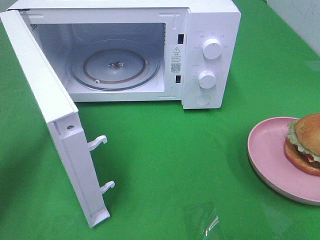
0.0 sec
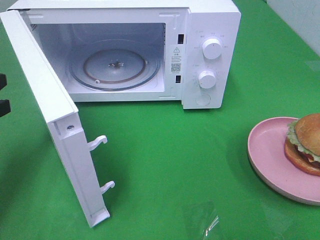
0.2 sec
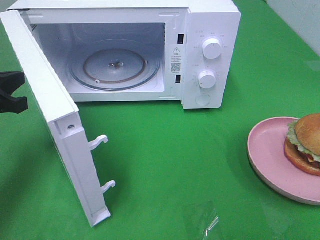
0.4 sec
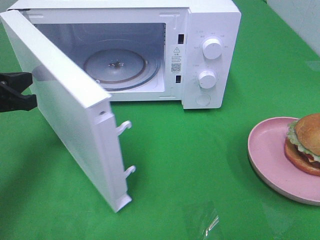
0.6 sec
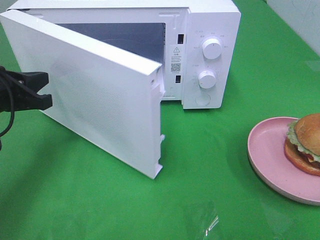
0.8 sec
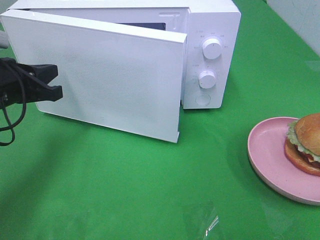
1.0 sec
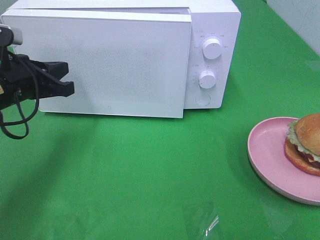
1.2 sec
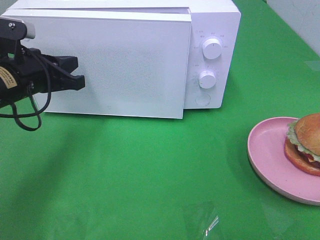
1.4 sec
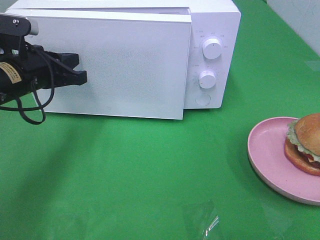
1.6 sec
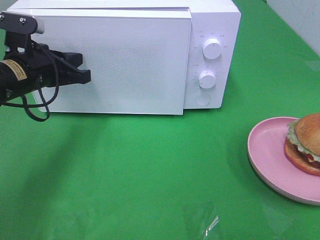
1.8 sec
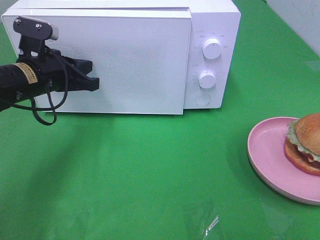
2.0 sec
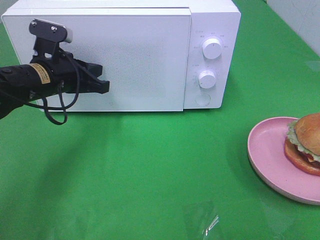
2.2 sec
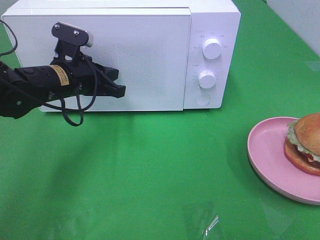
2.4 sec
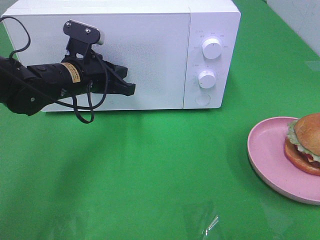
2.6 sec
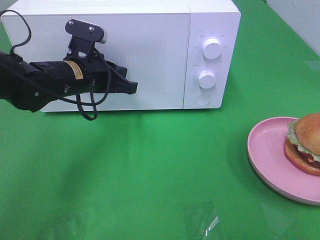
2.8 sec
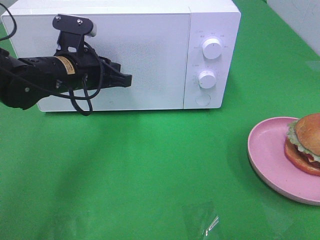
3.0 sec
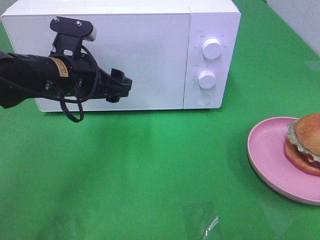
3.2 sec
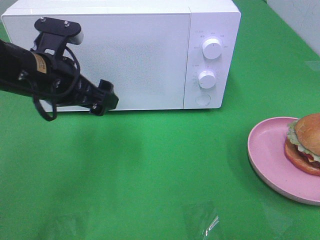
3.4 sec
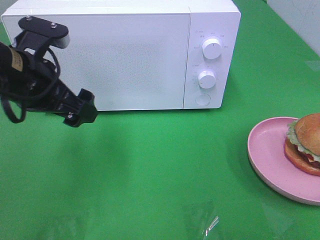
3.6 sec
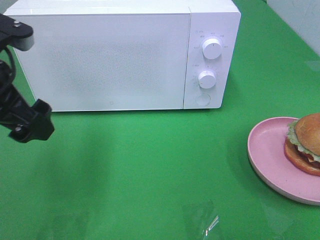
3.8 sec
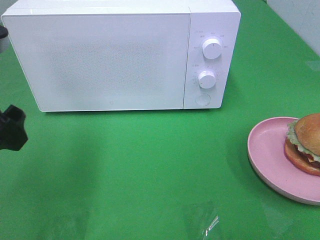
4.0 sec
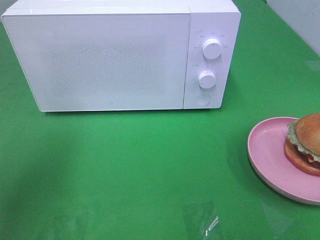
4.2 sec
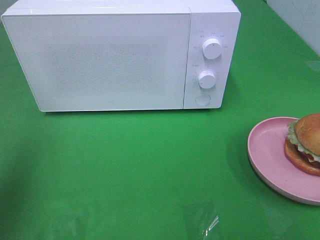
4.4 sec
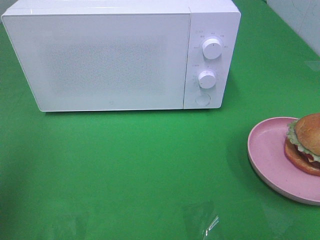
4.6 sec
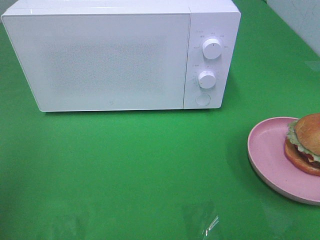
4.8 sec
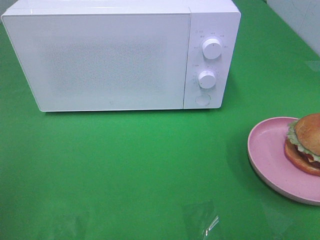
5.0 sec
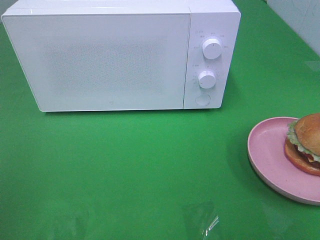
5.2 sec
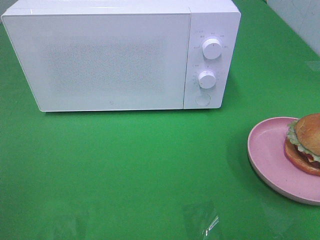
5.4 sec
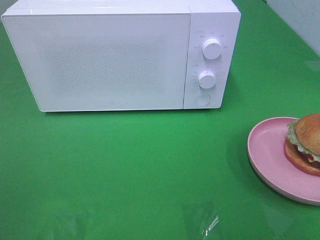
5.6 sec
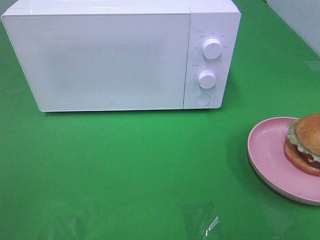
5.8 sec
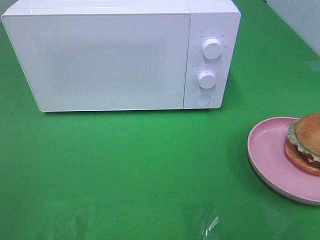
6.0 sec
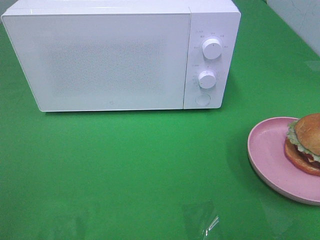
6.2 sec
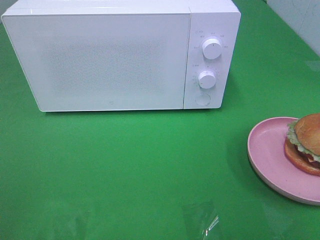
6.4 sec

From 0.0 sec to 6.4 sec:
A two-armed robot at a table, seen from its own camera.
Task of the whole recording: Heat the burger.
Step, from 0.0 sec to 3.0 sec: Left hand: close the microwave door.
From 0.0 sec to 1.6 sec: The left gripper heads to the right and forward, covering roughly 15 cm.
From 1.6 sec to 3.2 sec: The left gripper heads to the right, covering about 5 cm, and opens its fingers.
From 3.2 sec to 4.8 sec: The left gripper goes about 30 cm backward, to the left and upward.

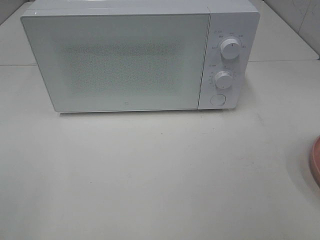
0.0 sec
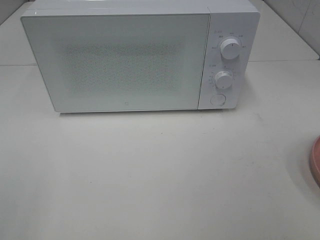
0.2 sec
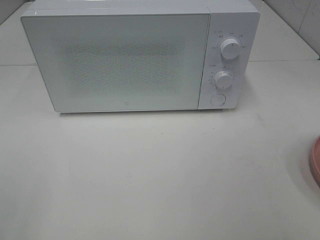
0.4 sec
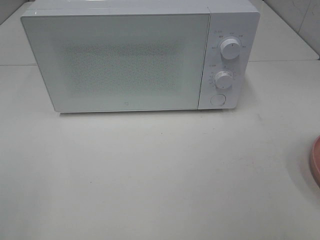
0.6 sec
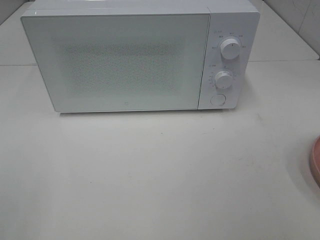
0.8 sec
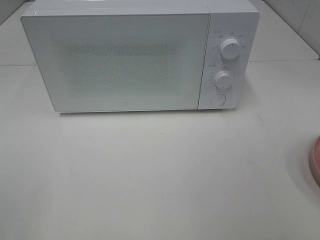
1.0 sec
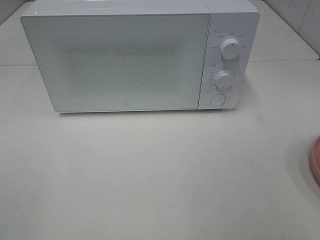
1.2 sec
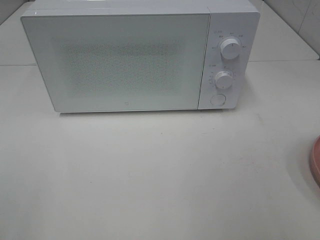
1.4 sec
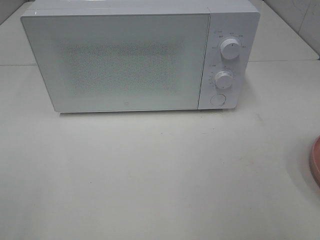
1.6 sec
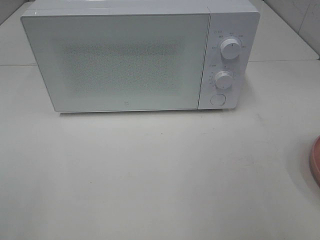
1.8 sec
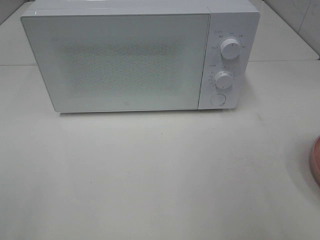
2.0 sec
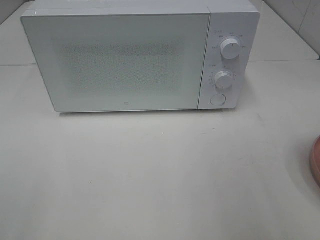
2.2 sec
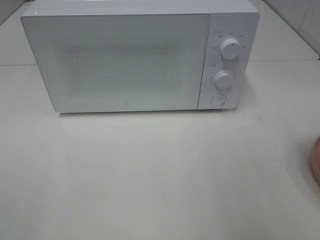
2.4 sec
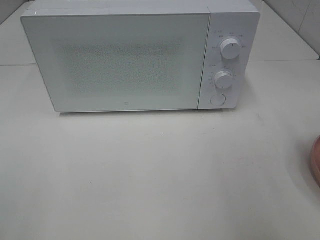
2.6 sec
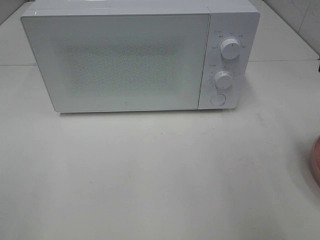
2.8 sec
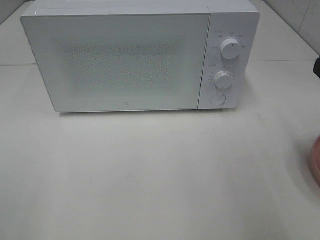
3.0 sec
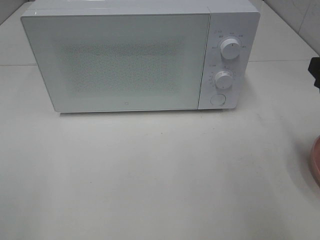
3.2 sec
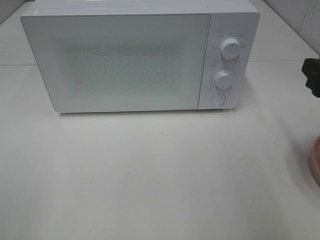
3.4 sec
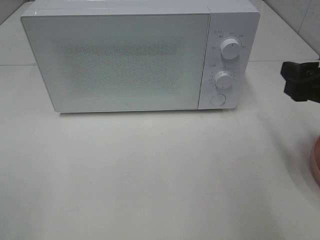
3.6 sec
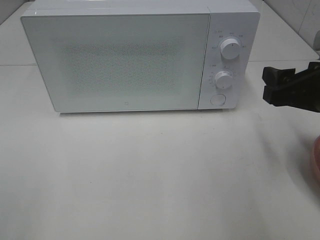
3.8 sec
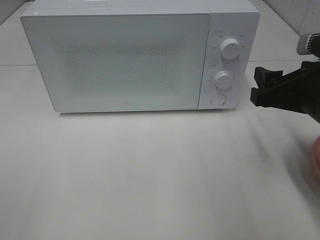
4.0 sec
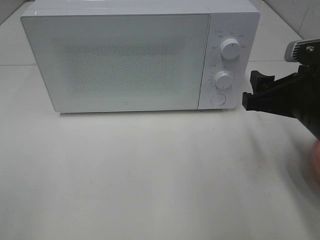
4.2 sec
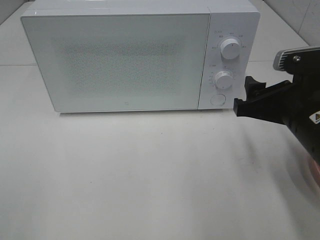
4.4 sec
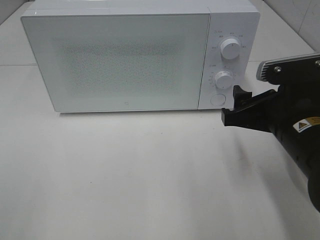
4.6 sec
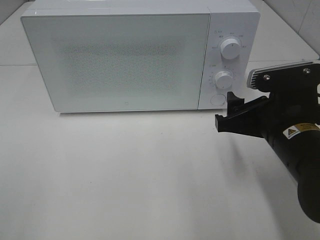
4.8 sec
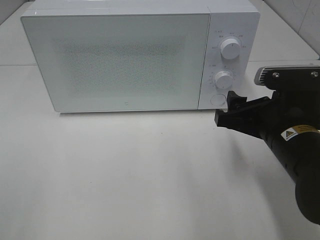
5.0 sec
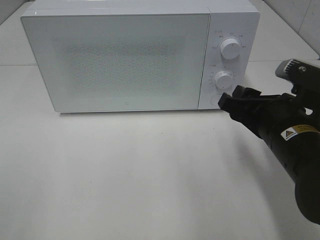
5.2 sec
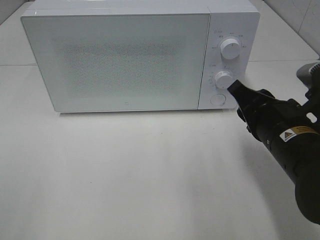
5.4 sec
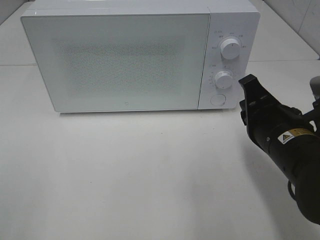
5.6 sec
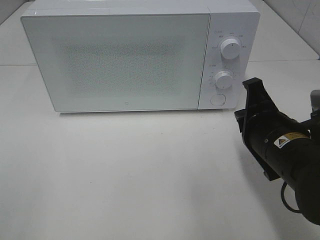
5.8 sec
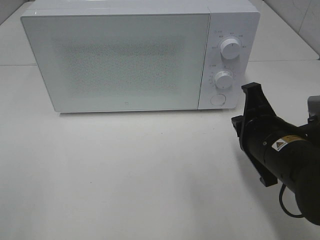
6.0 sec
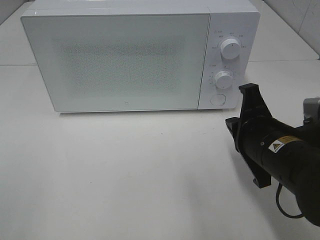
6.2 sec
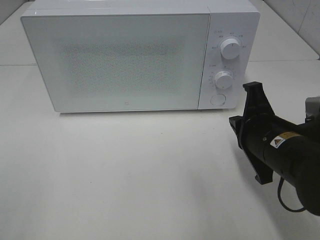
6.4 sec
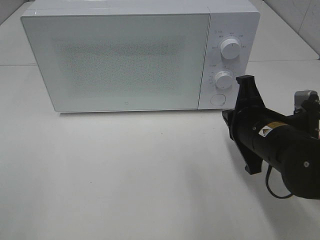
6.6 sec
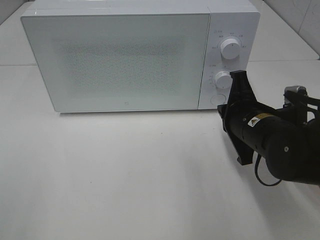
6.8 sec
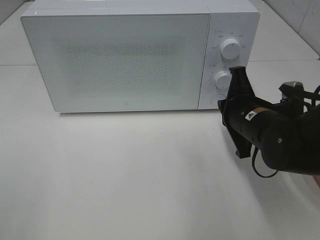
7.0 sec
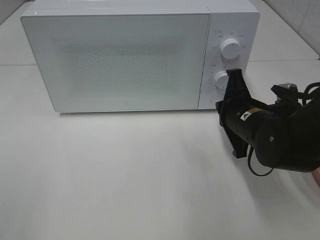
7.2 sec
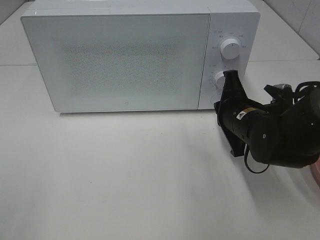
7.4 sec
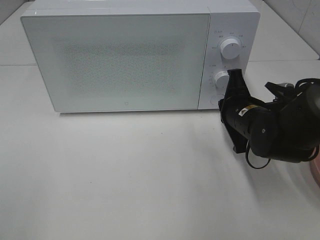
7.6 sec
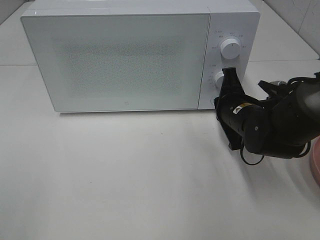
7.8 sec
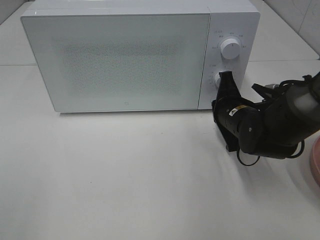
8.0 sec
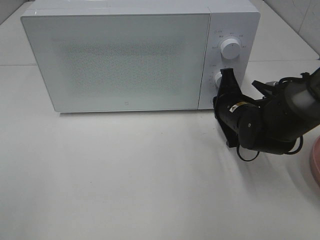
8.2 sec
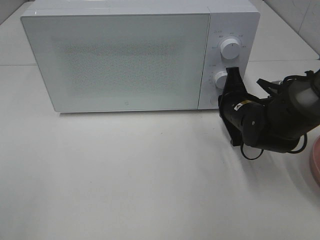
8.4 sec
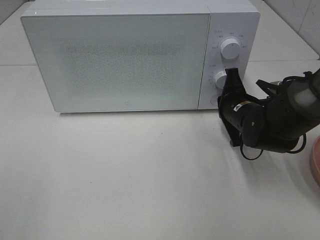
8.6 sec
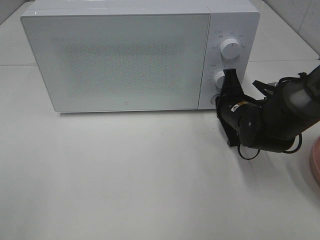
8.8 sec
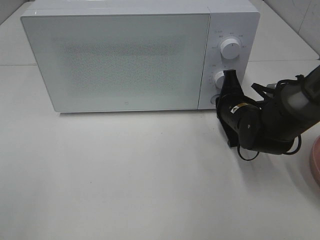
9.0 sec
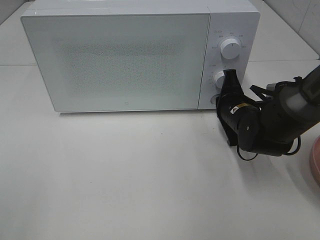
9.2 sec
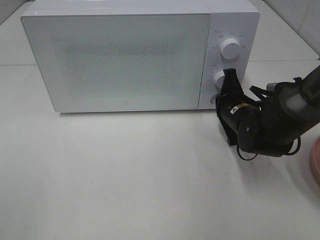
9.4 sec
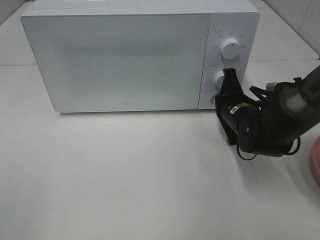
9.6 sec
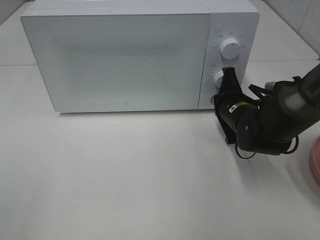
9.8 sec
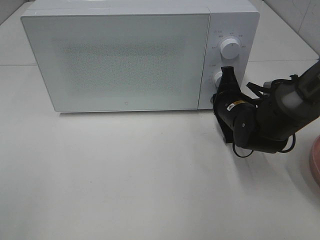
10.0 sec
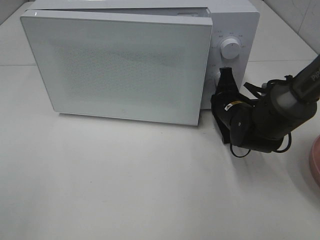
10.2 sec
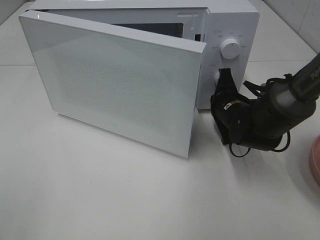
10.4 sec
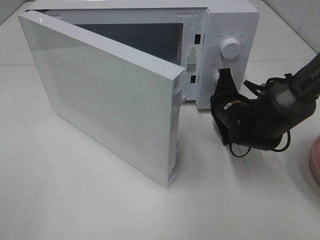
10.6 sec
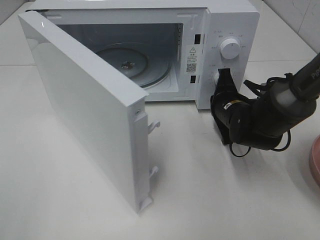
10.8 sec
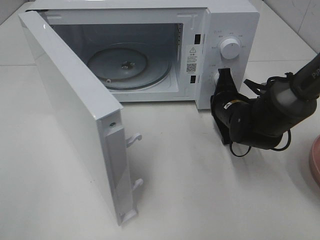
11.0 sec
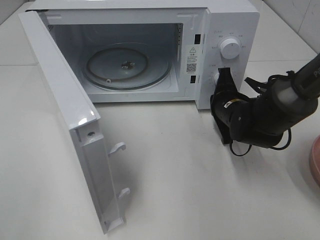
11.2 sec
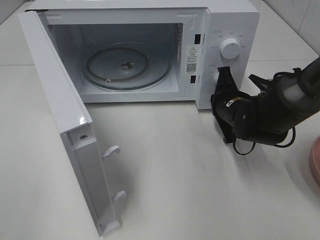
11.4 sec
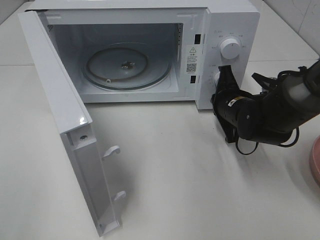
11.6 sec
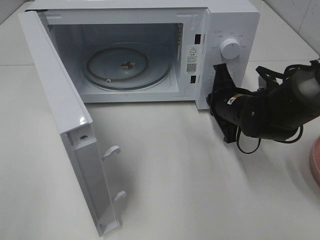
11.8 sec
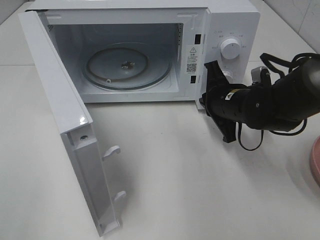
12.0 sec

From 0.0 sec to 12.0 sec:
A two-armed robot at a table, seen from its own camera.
Task of the whole recording: Heat the burger.
Step, from 0.0 sec to 11.8 sec: Right hand: press the switch.
From 3.0 sec to 4.4 sec: The right gripper goes about 10 cm to the left and downward.
From 4.4 sec to 6.0 sec: The right gripper moves some 5 cm, and closes its fingers.
From 6.0 sec to 7.6 sec: The right gripper moves forward, roughly 10 cm.
From 7.6 sec to 10.4 sec: The grippers stay close to where they were, moving slightly.

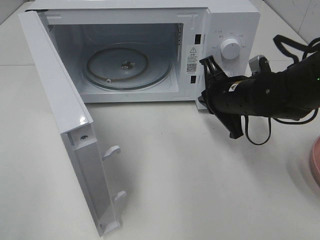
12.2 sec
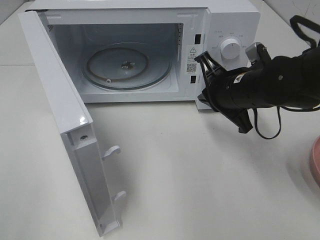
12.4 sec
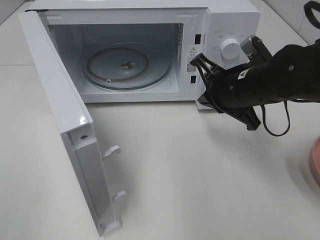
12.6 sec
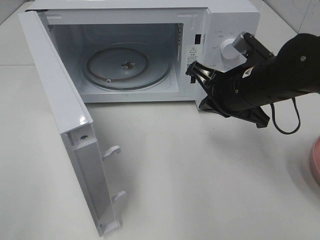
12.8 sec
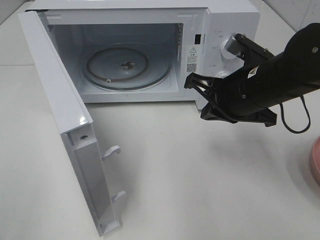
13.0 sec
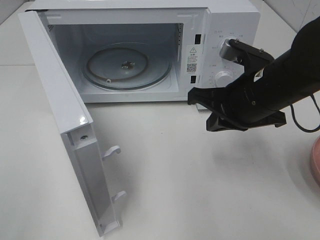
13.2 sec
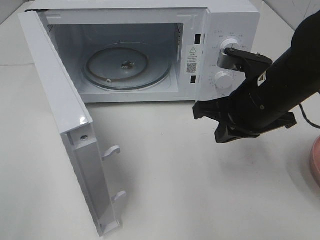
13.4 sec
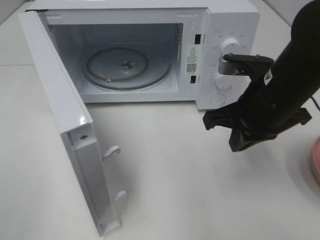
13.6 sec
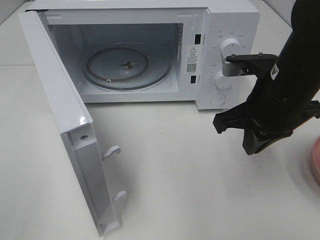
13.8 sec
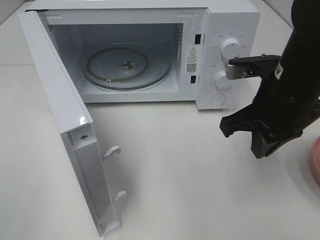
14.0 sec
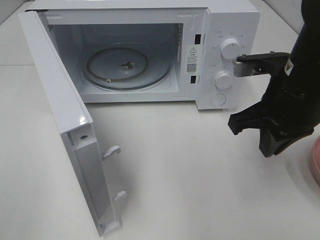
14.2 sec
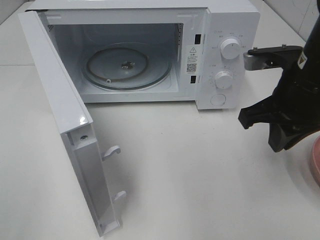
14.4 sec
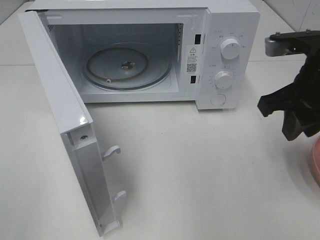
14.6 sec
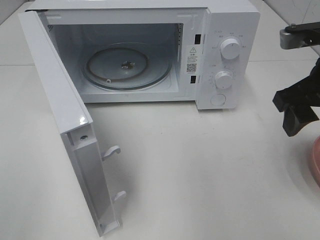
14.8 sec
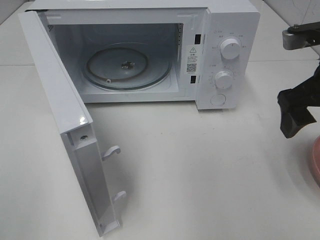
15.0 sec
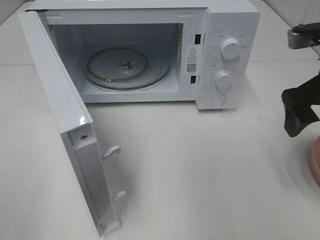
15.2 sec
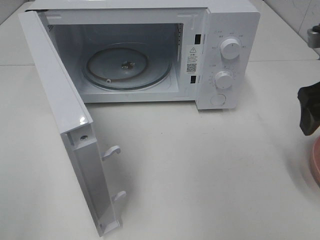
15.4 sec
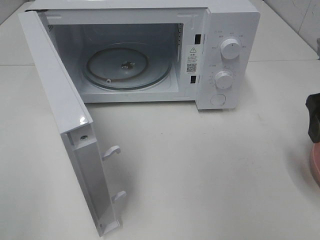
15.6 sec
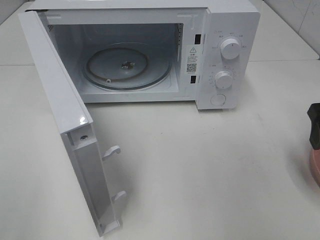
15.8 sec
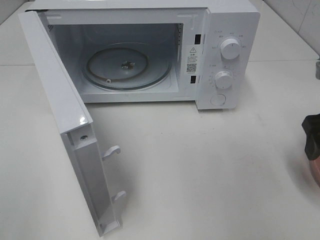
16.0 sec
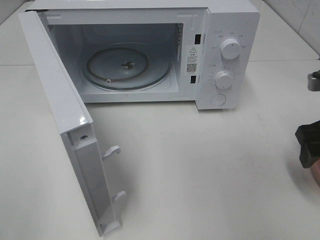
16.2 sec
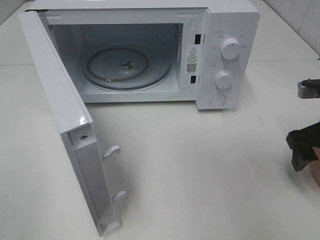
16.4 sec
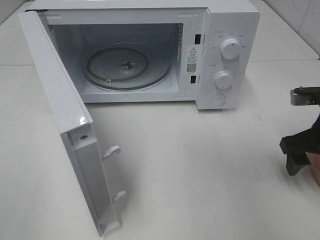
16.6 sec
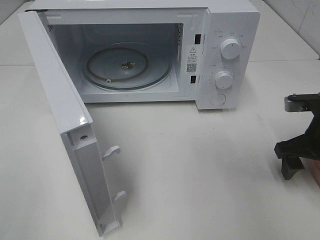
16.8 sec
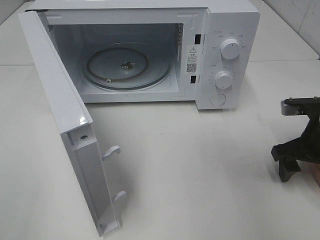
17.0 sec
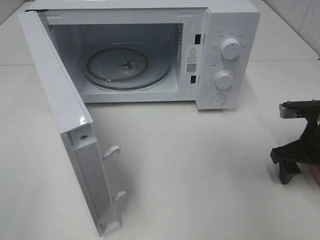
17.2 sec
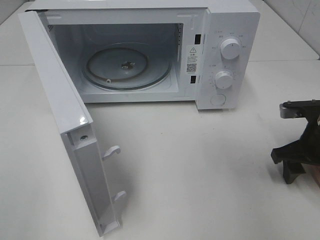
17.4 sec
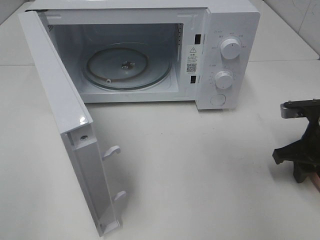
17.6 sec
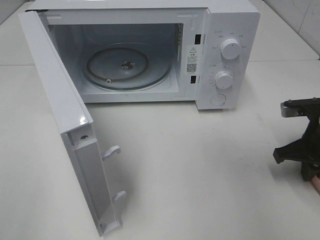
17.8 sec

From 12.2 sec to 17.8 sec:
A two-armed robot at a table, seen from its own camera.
Task of the whole recording: Heat the burger.
From 12.2 sec to 13.6 sec: The right gripper is displaced backward and upward by about 10 cm.
From 13.6 sec to 15.0 sec: The right gripper moves to the right and upward, some 10 cm, and opens.
From 15.0 sec to 16.4 sec: The right gripper is displaced downward and to the right by some 10 cm.
From 16.4 sec to 17.8 sec: The right gripper goes roughly 5 cm downward, and closes up.
